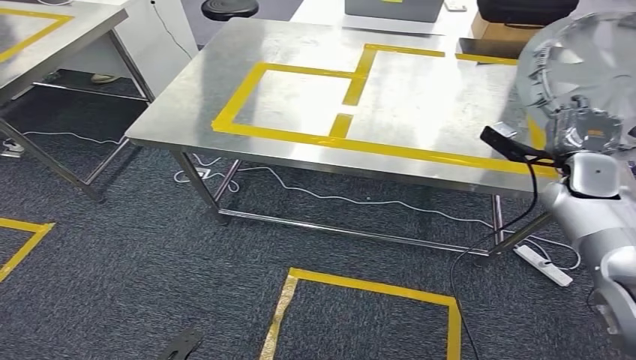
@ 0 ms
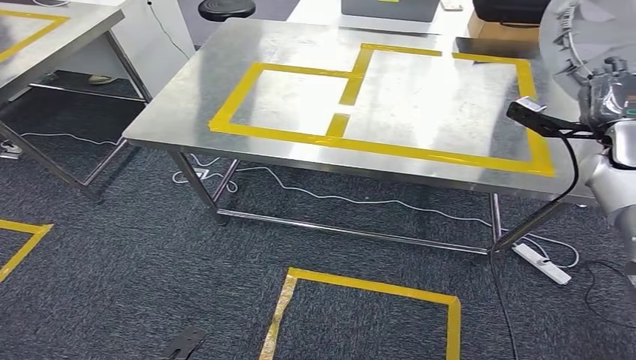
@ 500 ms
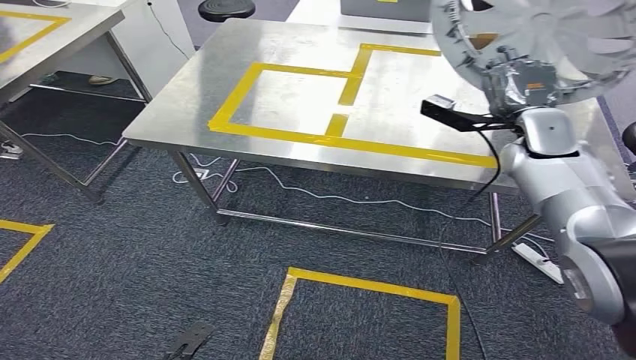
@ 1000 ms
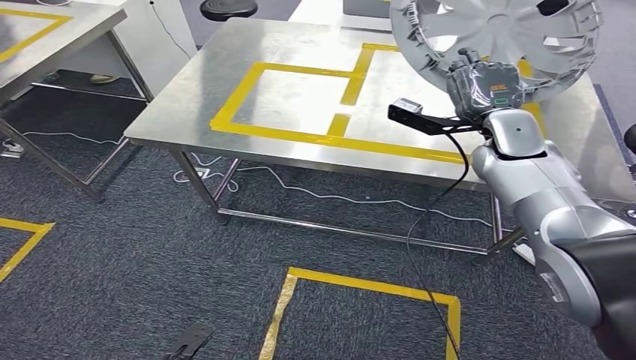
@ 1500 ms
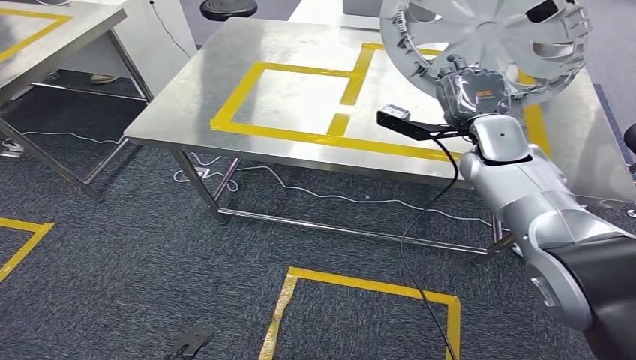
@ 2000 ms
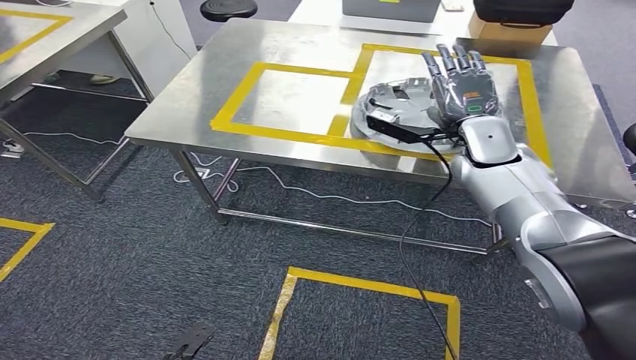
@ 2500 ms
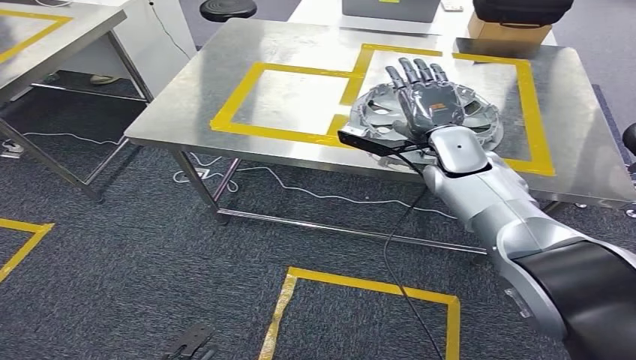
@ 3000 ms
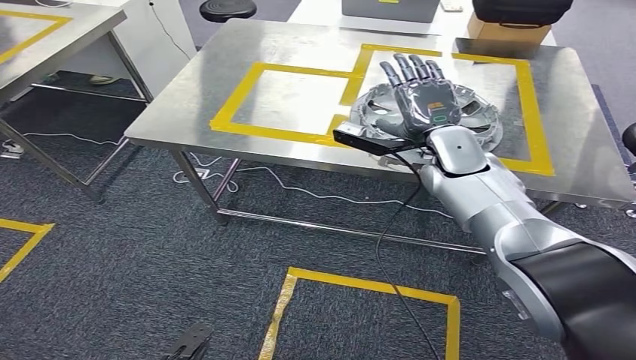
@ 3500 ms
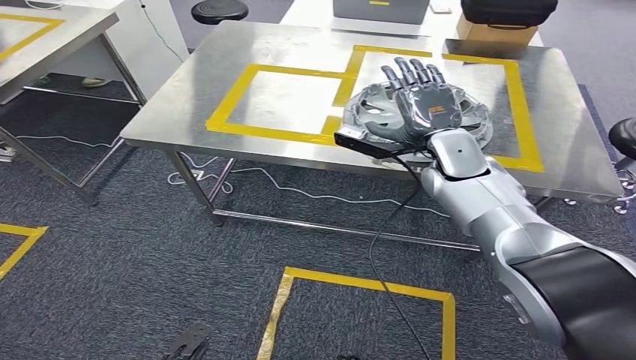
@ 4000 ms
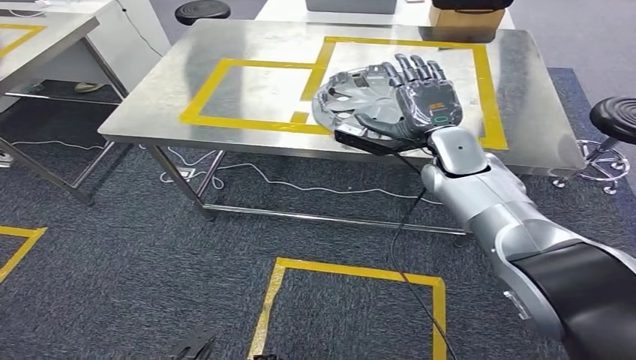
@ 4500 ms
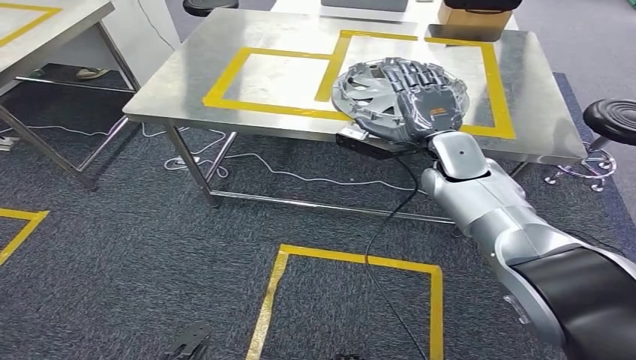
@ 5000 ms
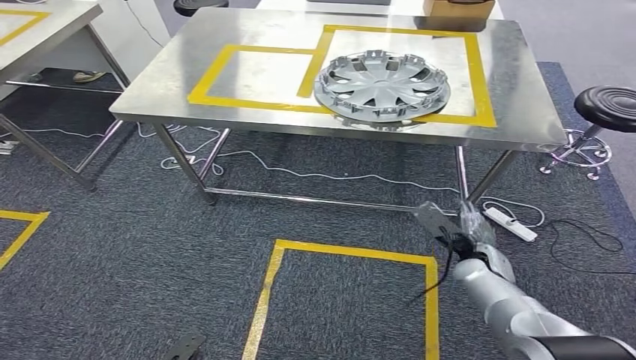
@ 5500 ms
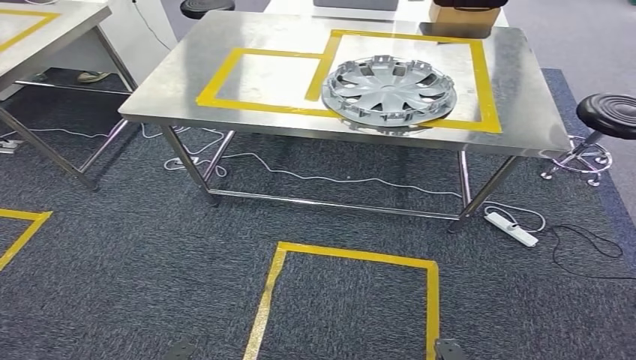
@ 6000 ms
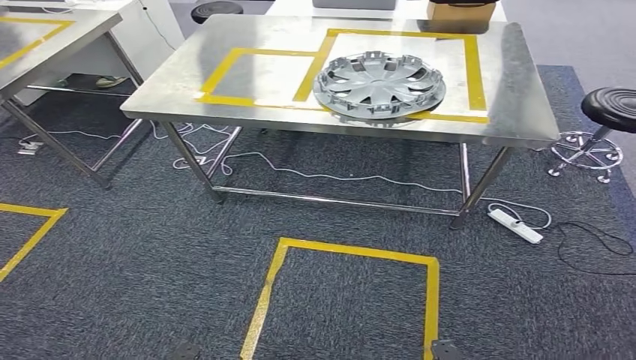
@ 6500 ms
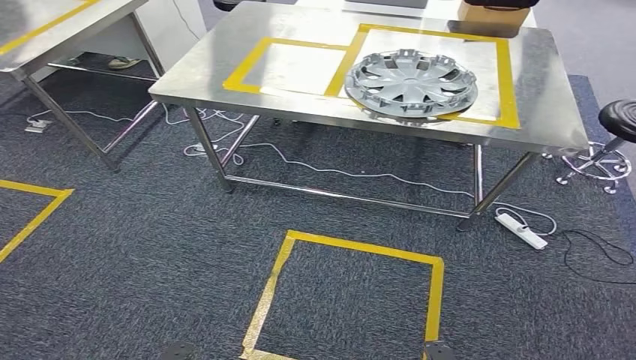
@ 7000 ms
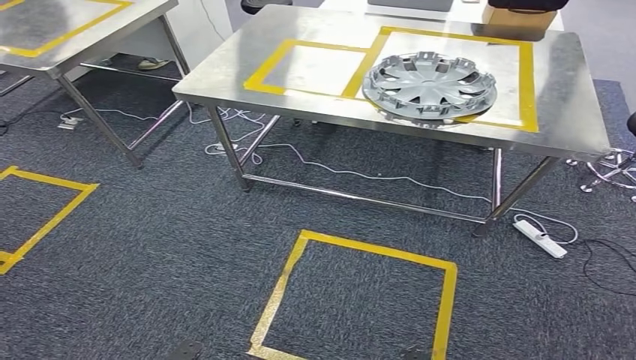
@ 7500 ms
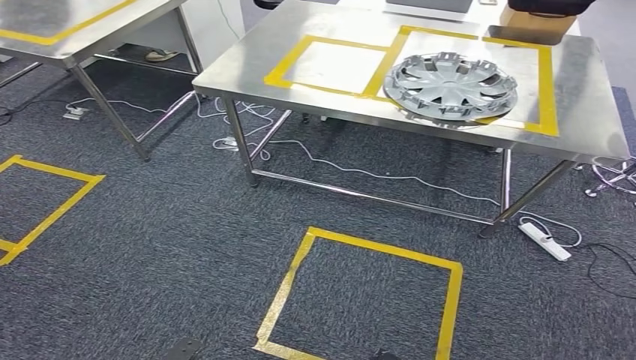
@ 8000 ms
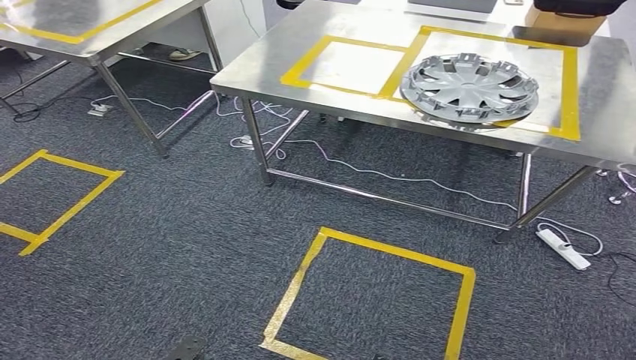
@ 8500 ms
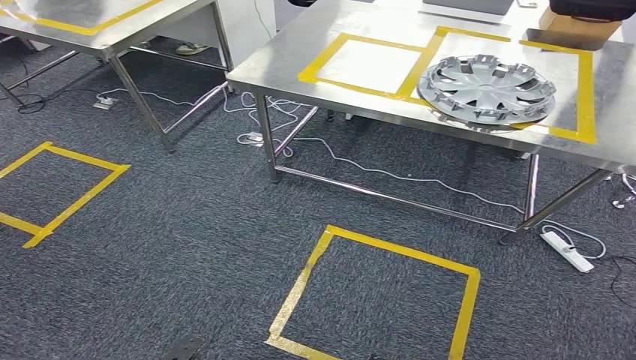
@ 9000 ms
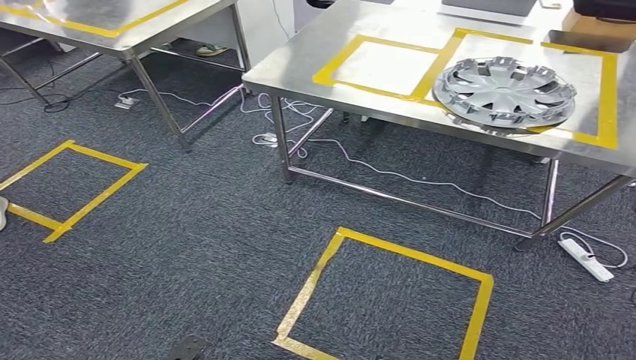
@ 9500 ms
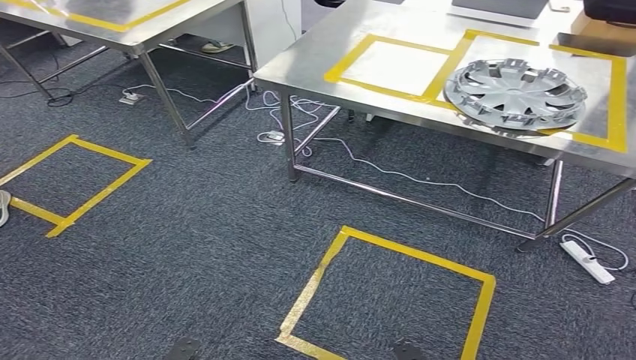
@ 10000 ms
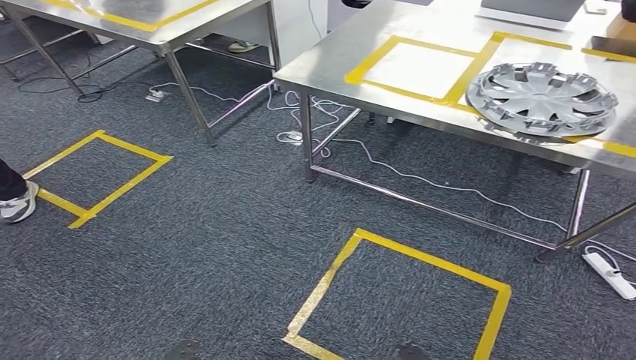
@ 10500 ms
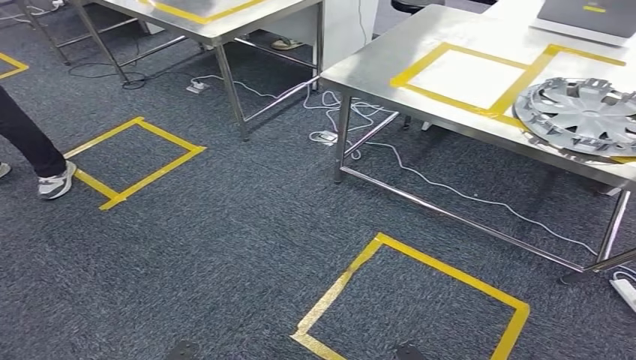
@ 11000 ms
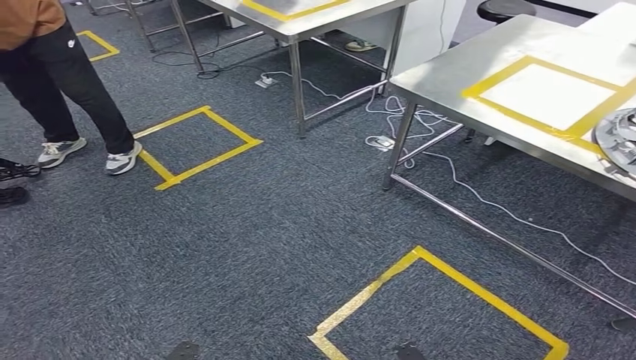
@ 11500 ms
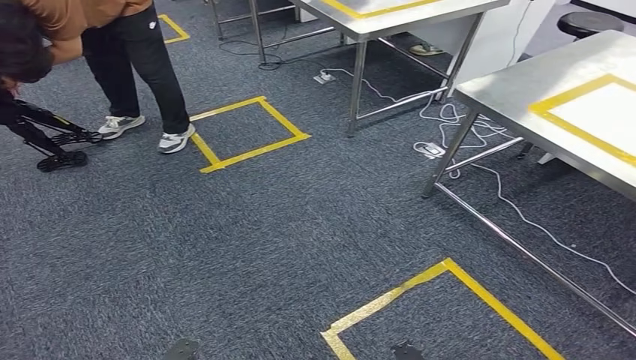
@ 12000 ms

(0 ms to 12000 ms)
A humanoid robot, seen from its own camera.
Step, 500 ms - 4500 ms: Insert the small component into the corresponding slot on the workbench.

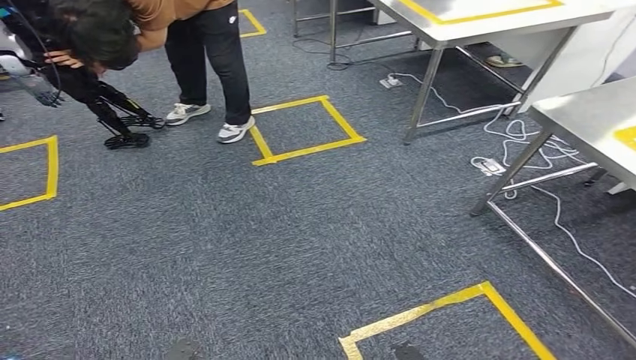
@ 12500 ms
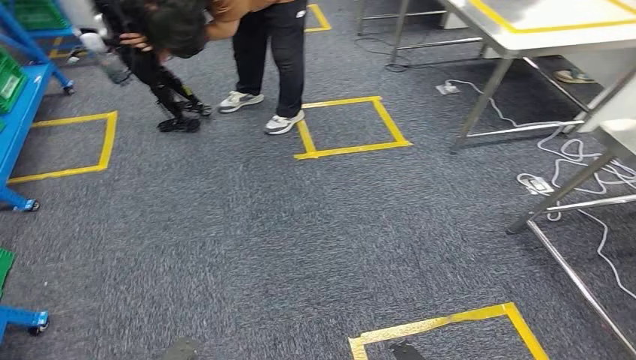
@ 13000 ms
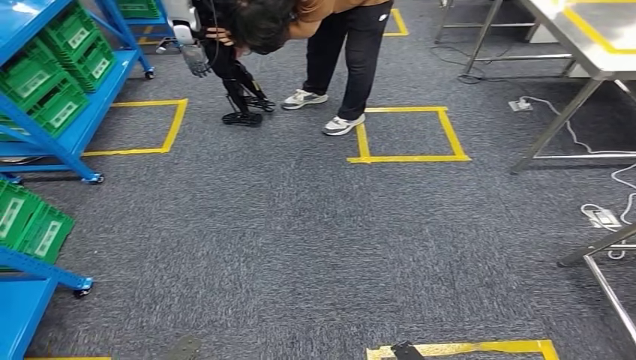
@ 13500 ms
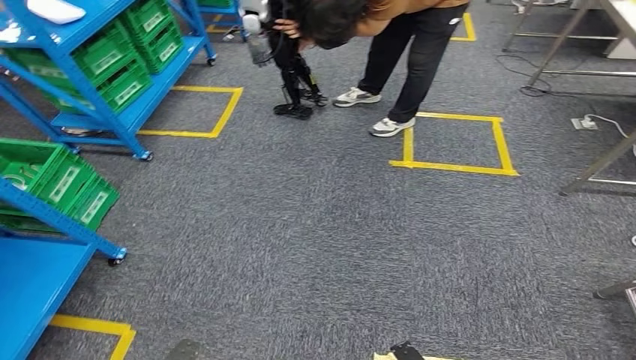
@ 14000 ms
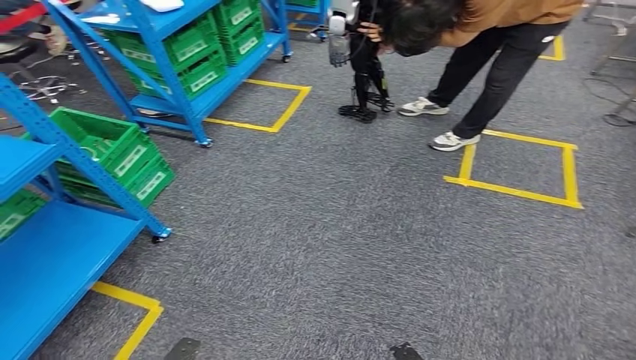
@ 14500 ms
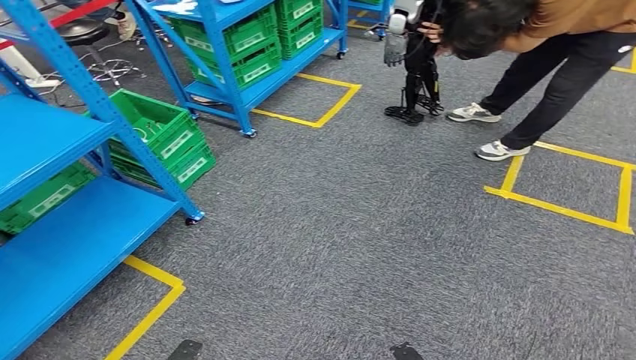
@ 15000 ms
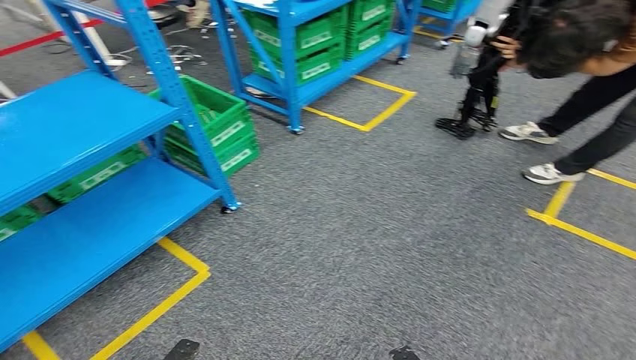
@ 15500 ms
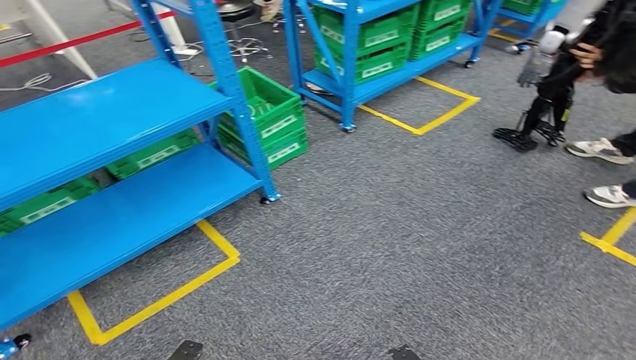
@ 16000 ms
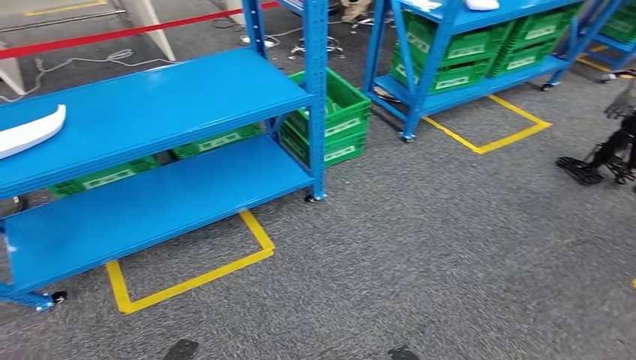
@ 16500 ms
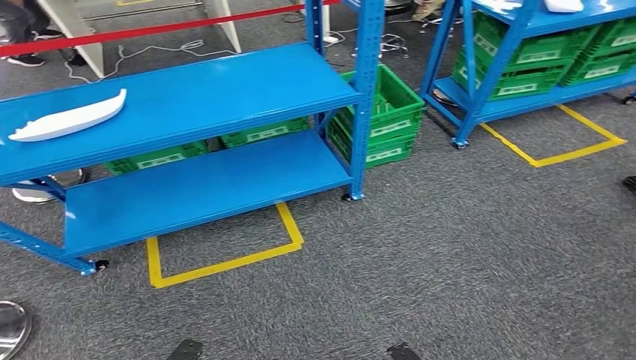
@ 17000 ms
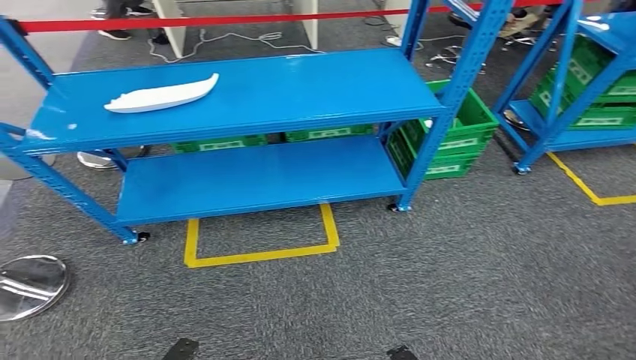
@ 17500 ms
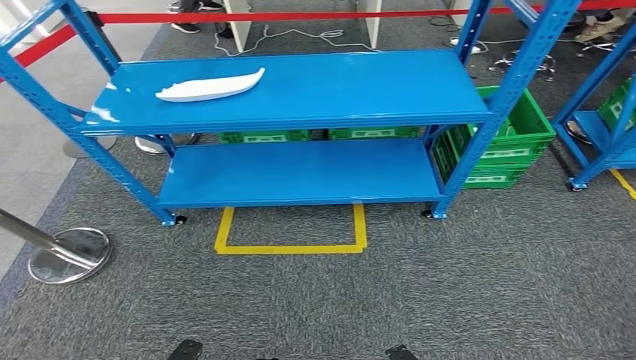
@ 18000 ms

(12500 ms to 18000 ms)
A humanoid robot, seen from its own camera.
Step, 12500 ms - 18000 ms: Return to the initial position at the workbench.
